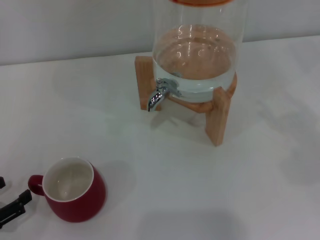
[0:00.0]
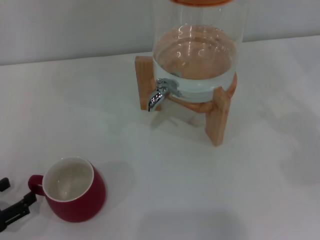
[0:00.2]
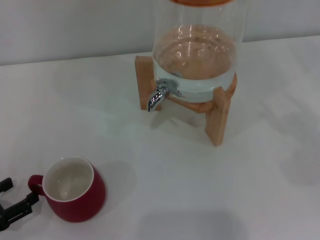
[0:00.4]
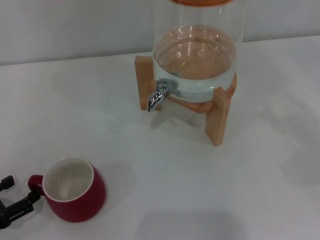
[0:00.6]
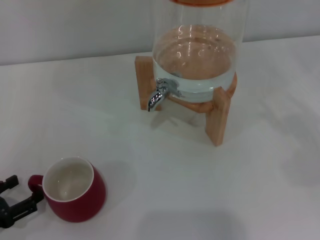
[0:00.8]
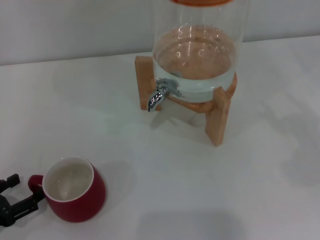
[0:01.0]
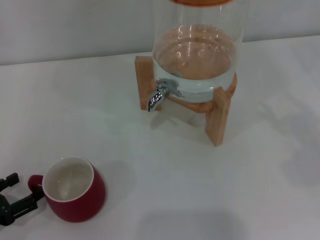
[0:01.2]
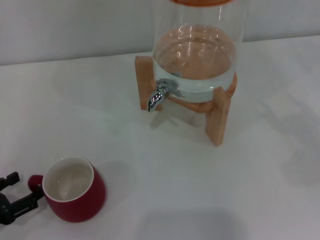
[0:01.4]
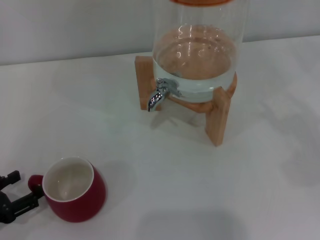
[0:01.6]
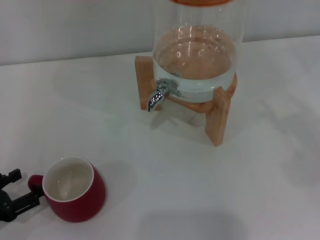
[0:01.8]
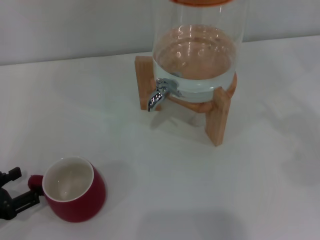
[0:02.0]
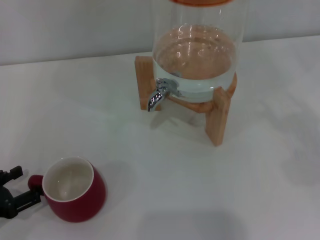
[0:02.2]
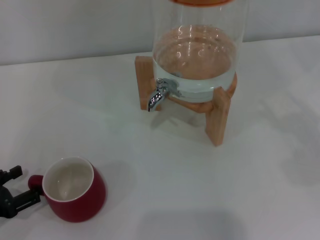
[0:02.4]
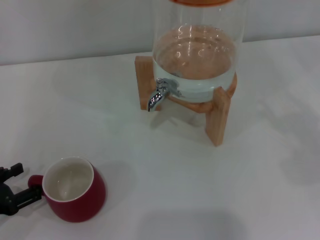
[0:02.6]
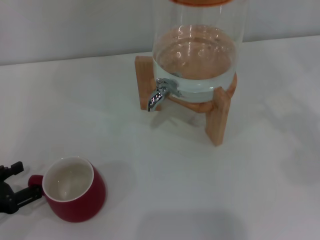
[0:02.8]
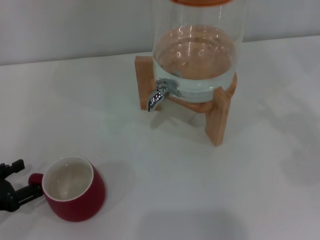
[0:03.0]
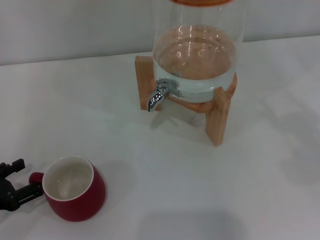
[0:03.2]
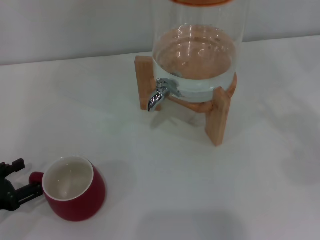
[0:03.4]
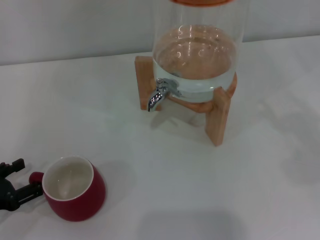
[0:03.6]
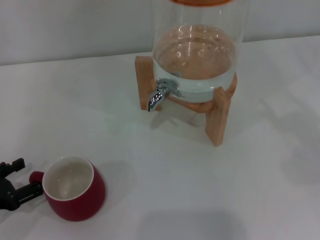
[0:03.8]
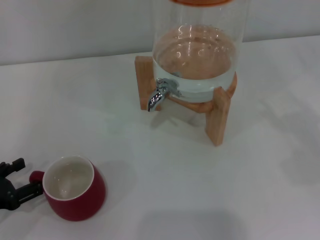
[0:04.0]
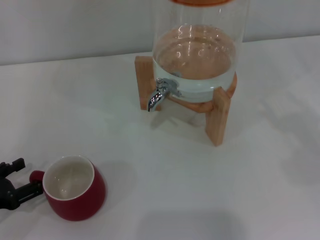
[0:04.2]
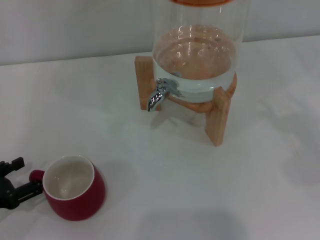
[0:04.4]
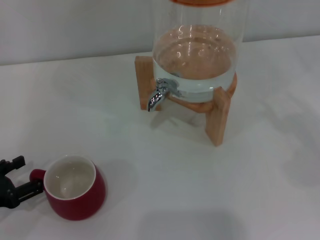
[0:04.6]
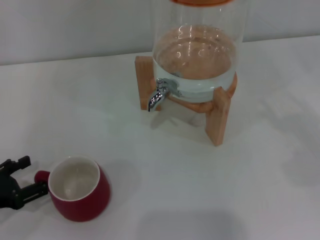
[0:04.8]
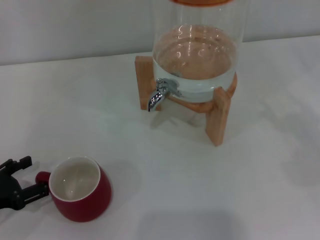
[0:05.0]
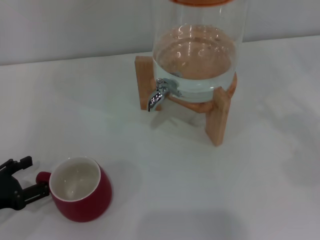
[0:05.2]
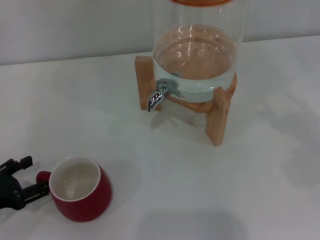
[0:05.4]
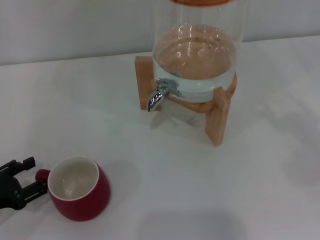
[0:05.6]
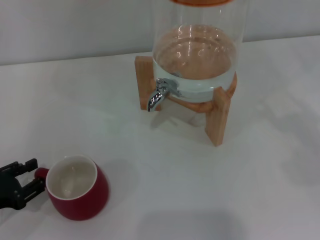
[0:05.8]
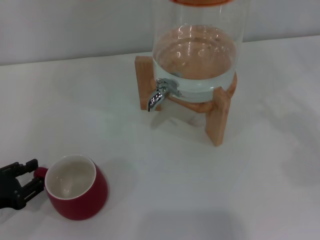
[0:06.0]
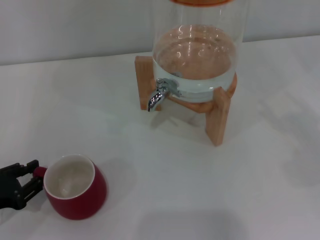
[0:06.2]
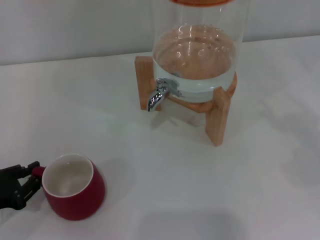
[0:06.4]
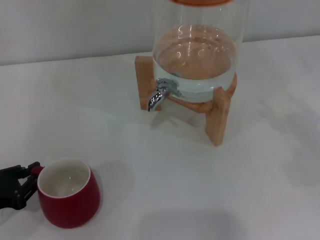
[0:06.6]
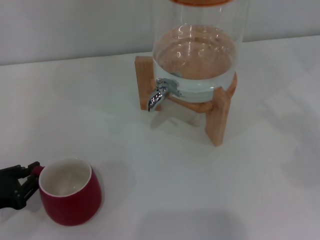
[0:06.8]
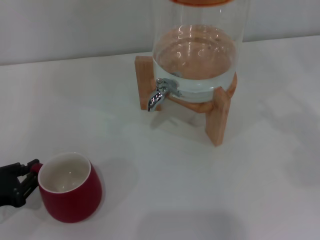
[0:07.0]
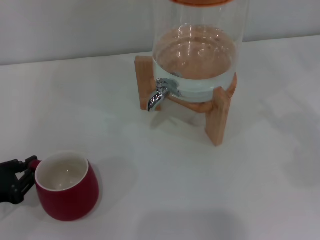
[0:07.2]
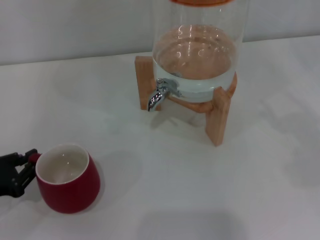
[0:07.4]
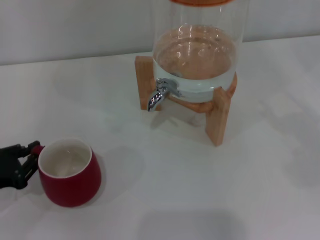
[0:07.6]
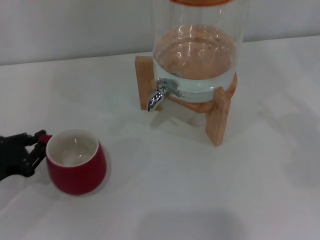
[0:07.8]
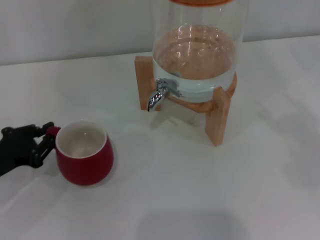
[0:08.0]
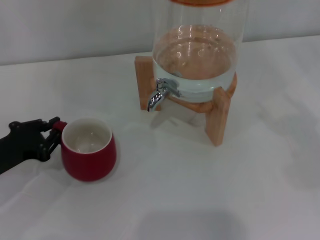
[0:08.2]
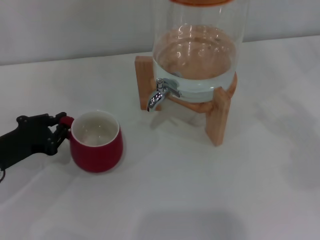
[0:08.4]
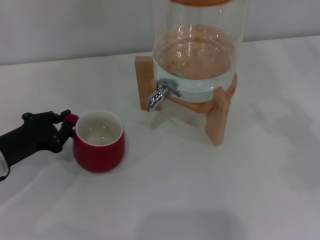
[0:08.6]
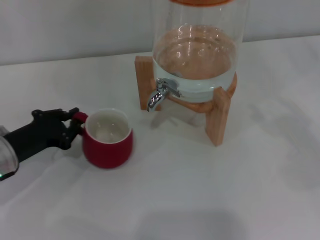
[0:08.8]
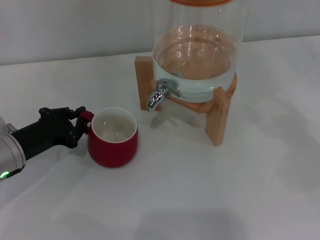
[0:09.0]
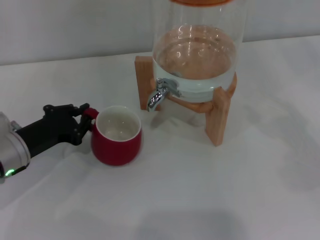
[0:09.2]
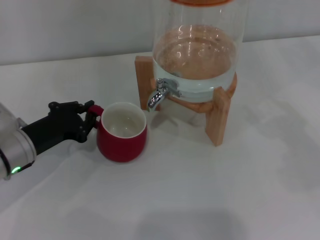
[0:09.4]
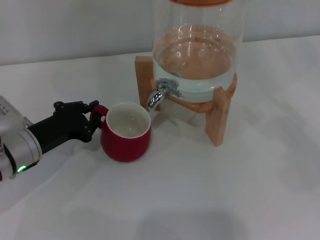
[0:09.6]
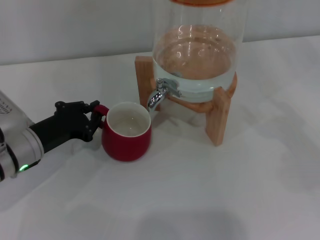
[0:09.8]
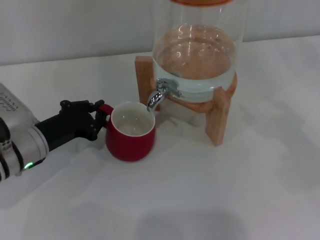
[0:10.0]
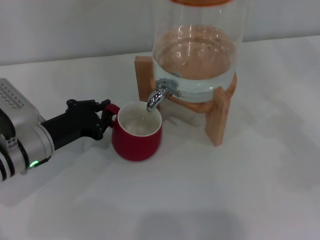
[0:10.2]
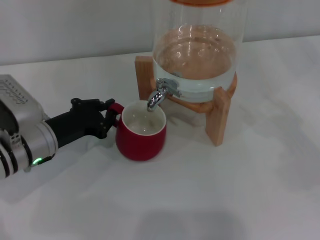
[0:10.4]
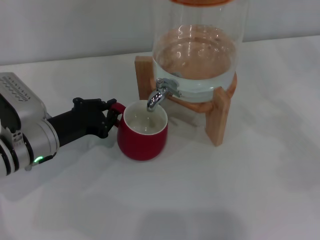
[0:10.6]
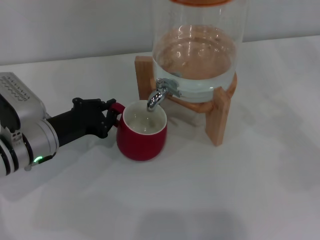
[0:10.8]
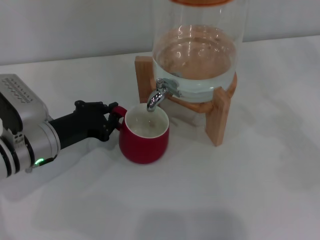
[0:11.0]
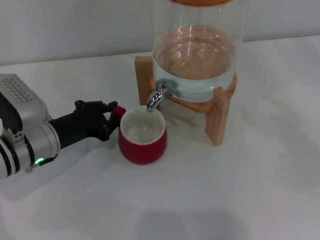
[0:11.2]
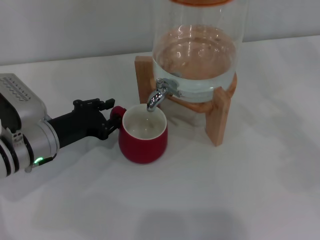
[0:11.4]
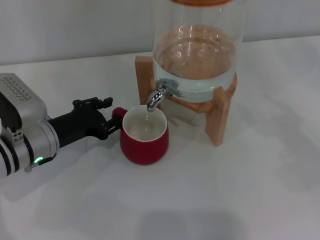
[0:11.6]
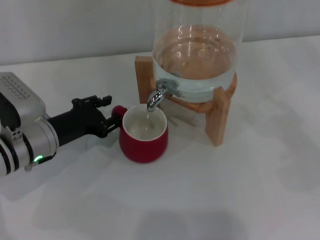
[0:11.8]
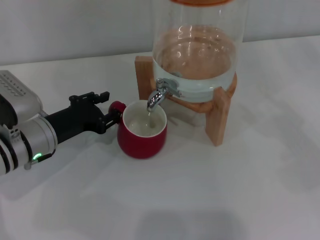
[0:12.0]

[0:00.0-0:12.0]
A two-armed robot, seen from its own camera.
Task of the whole recording: the left gripper pick up the red cup and place it horizontally under the faucet, the right gripper turn on the faucet to fill the cup, and then turn off the faucet.
0:00.0 to 0:03.0: The grippers stay close to where they were, moving slightly.
0:03.0 to 0:04.4: The two grippers keep their place.
0:04.4 to 0:06.0: The left gripper closes up.
0:06.0 to 0:07.6: The left gripper closes up.
0:07.6 to 0:09.0: The left gripper travels to the right and forward by about 10 cm.
0:09.0 to 0:10.4: The grippers make only small movements.
0:10.4 to 0:12.0: The left gripper opens up.

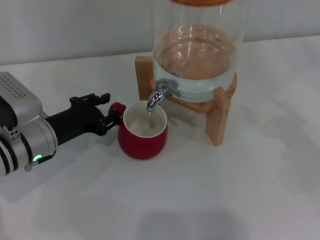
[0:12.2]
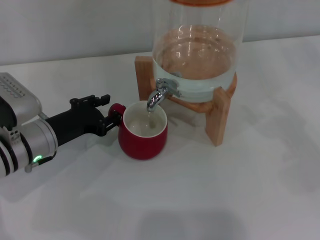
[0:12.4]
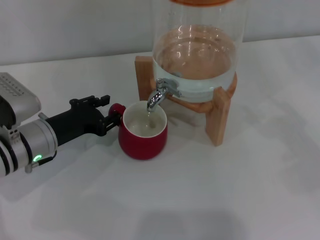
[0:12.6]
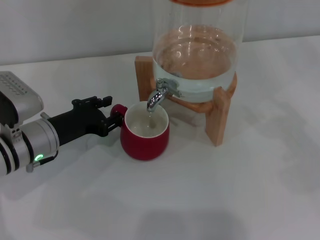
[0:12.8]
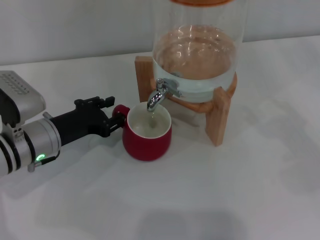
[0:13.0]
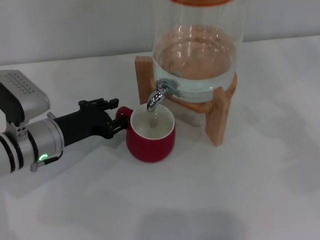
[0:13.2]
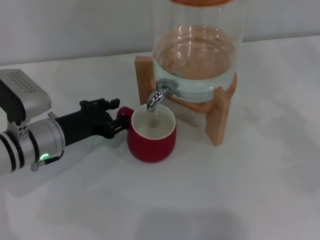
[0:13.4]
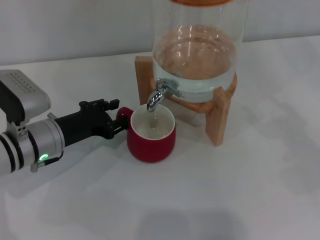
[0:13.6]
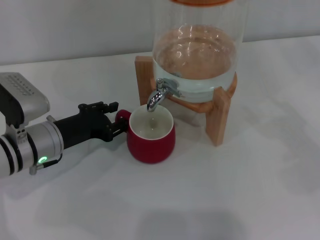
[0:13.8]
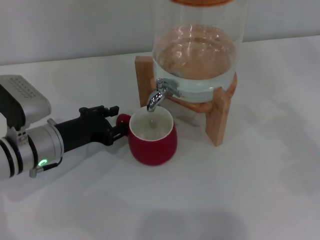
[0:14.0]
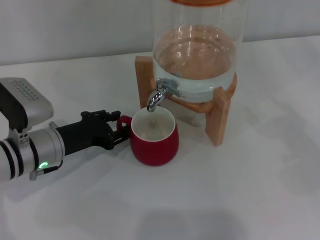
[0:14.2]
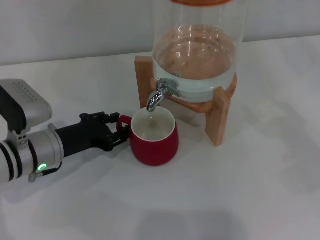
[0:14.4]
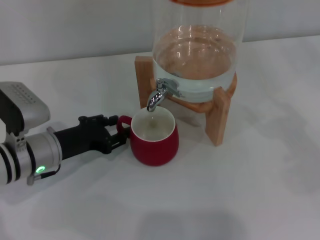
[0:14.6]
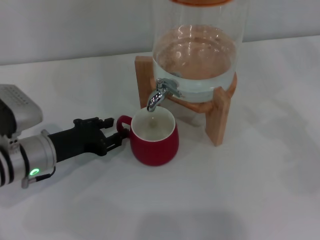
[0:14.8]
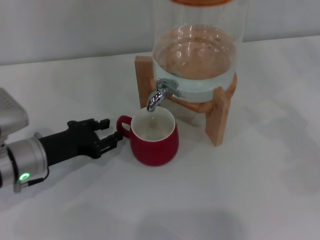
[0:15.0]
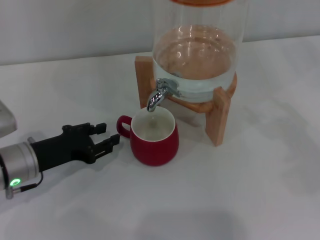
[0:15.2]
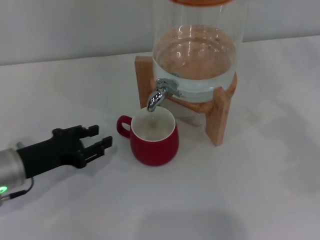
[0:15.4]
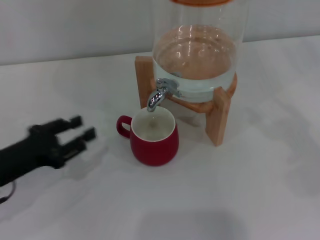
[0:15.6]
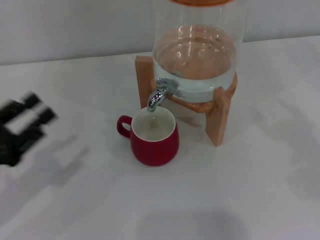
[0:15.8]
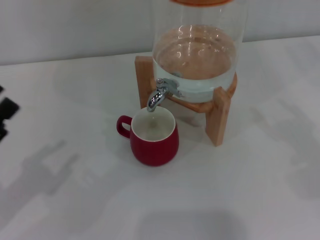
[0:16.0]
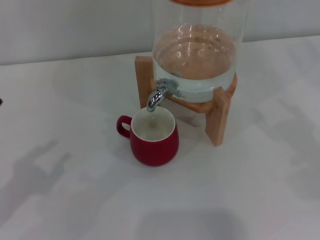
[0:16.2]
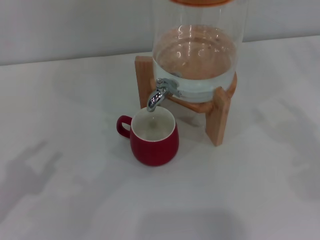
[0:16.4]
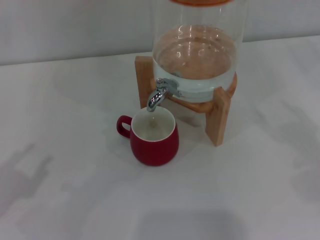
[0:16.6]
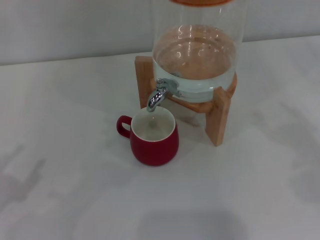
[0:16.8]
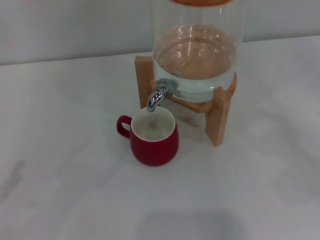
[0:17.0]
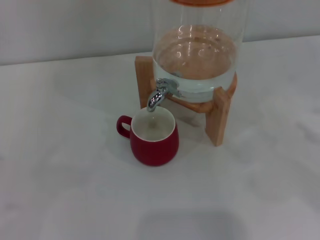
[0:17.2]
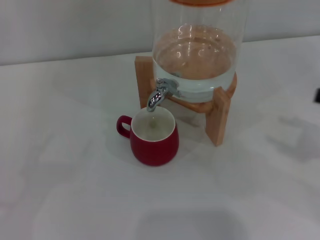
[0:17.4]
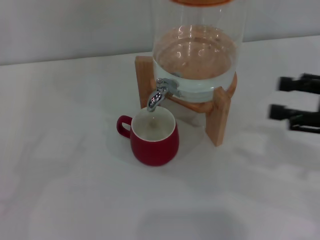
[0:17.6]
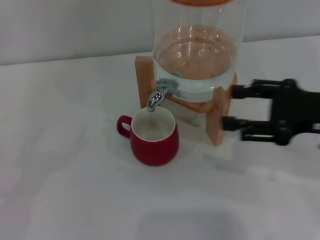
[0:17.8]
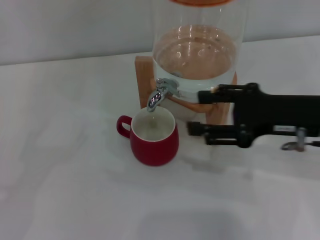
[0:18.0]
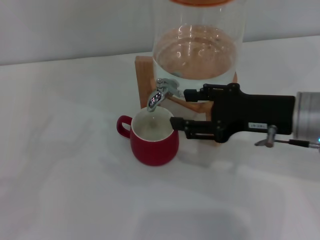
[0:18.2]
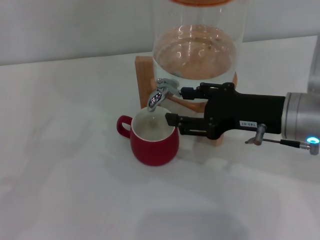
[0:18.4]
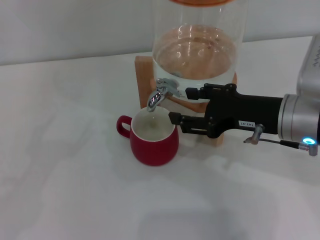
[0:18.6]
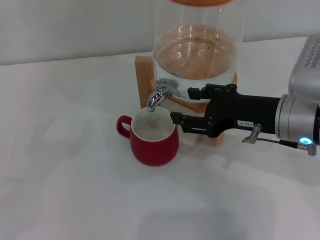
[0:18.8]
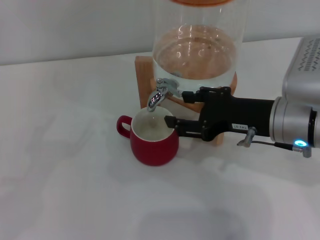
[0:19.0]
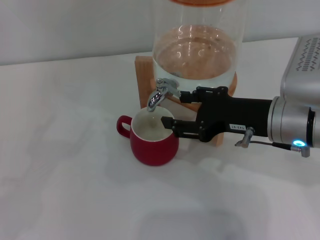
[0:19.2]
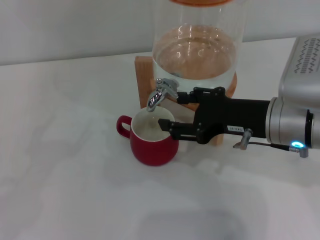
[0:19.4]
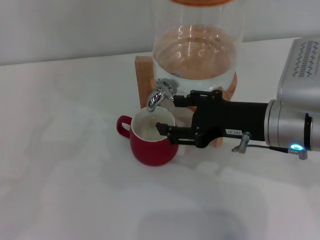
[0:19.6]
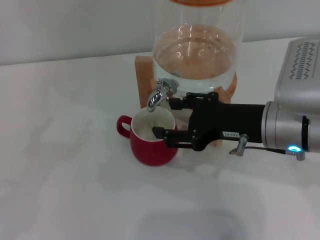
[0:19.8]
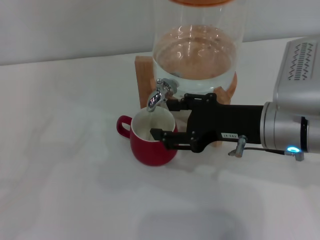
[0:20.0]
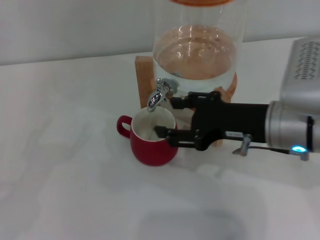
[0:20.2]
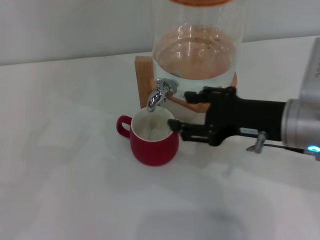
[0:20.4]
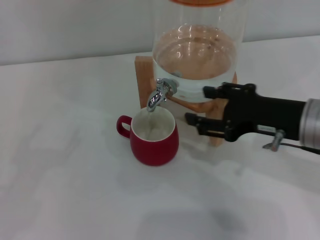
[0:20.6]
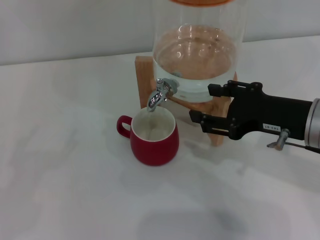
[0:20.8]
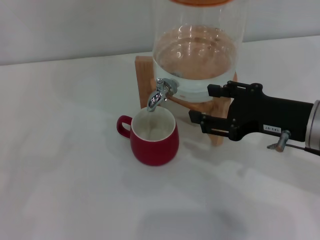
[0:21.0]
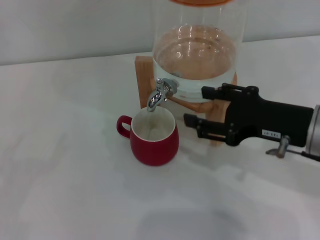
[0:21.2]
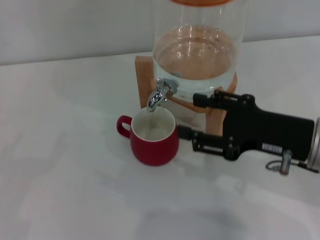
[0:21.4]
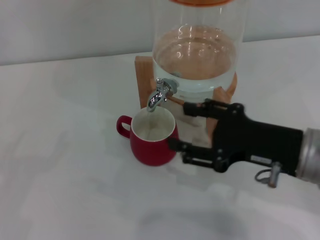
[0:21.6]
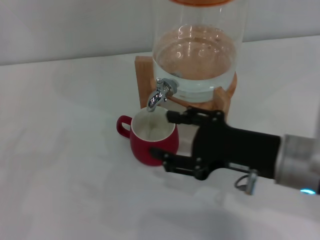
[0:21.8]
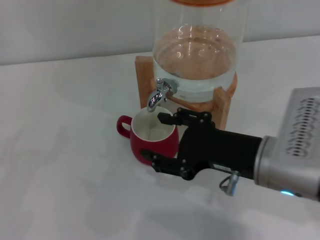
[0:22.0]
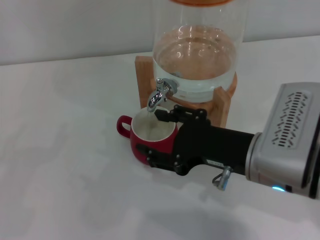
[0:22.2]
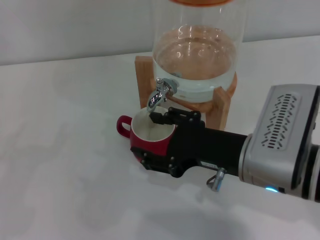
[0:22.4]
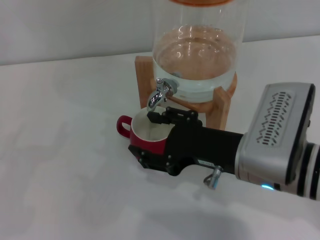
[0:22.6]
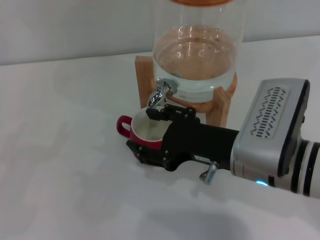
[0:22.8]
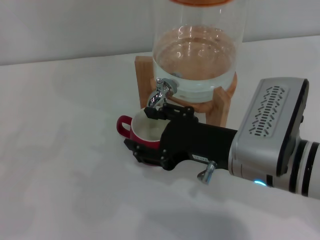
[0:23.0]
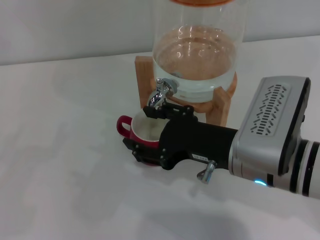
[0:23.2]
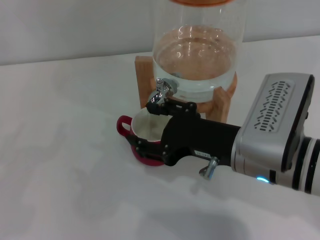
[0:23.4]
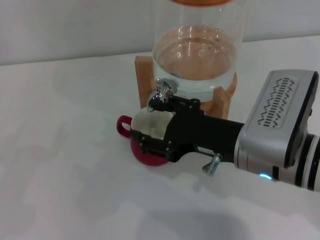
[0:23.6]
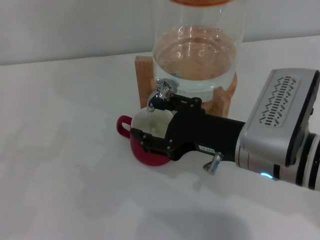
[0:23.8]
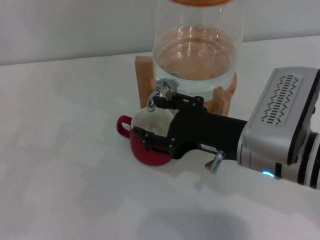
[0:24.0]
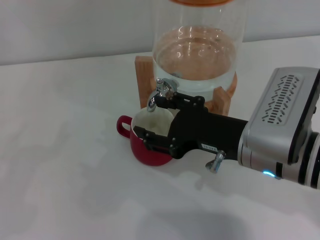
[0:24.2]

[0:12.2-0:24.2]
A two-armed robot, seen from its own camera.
Task of the whole recording: the left gripper pick up the red cup and place it horizontally under the faucet, the right gripper turn on the faucet to fill the cup, and then turn off the faucet.
Step, 0:12.2 to 0:15.2: Move the cup beneath the water dispenser nozzle with the left gripper.
Step, 0:15.4 to 0:20.0: Open the dispenser valve and fill the cup with water with the right gripper.
0:12.2 to 0:15.2: The grippers make only small movements.
0:15.2 to 0:16.6: The left gripper travels backward and to the left by some 15 cm.
0:16.6 to 0:18.2: The right gripper is displaced to the left by roughly 25 cm; the left gripper goes roughly 5 cm to the left, and opens up.
0:18.2 to 0:19.8: The grippers make only small movements.
0:19.8 to 0:21.2: The right gripper moves some 5 cm. Meanwhile the left gripper ends up some 5 cm from where it was.
0:21.2 to 0:22.6: The right gripper shifts some 10 cm to the left.
0:22.6 to 0:24.2: The two grippers keep their place.
